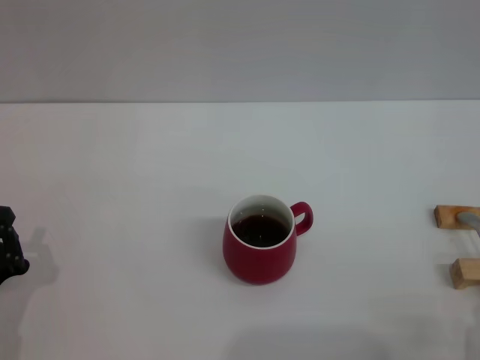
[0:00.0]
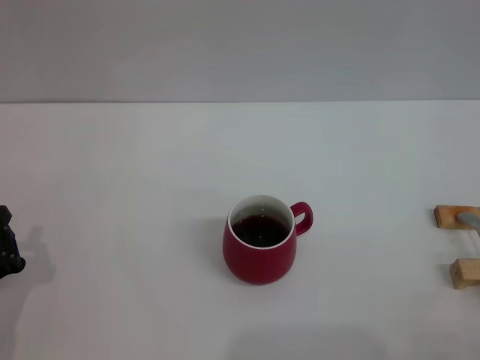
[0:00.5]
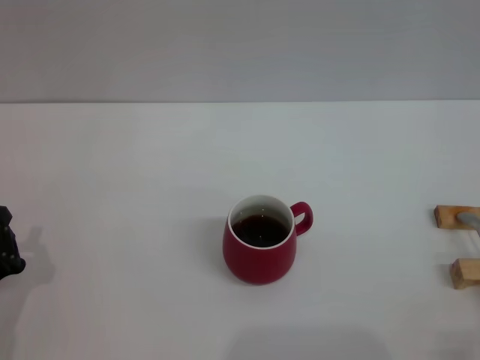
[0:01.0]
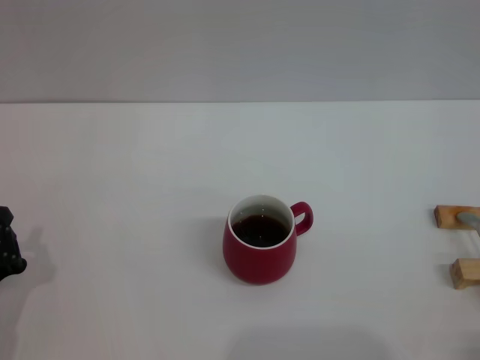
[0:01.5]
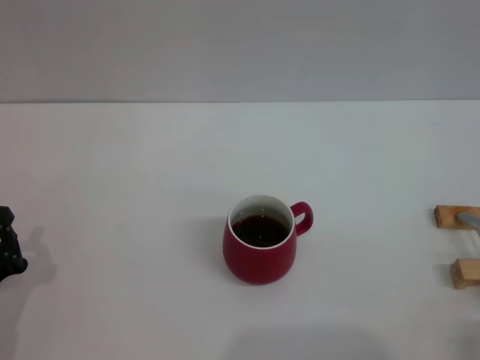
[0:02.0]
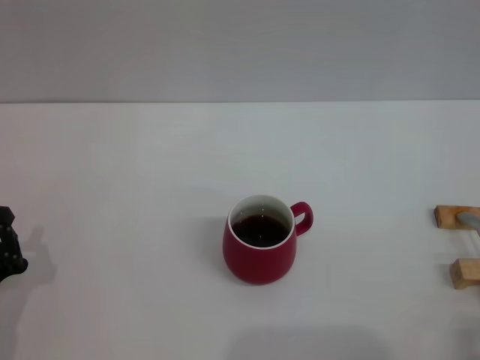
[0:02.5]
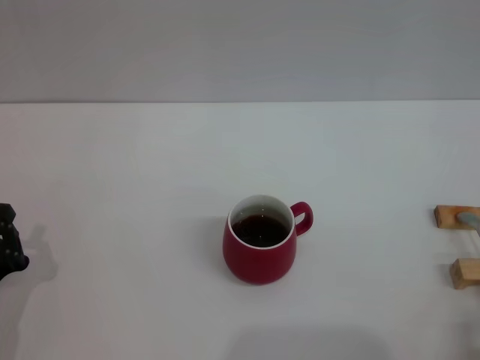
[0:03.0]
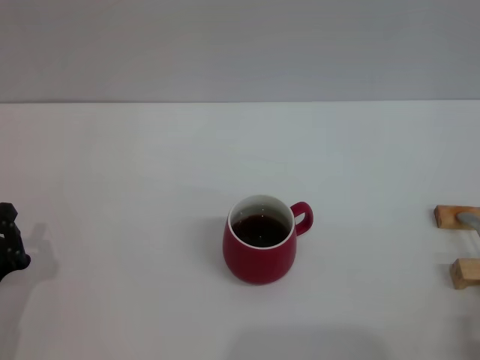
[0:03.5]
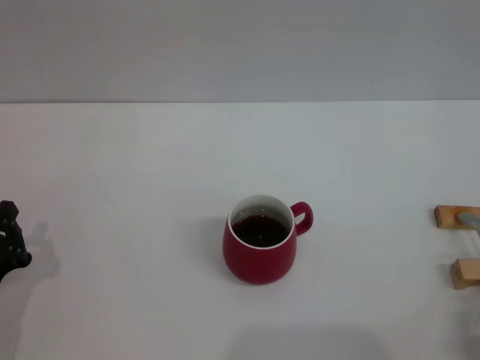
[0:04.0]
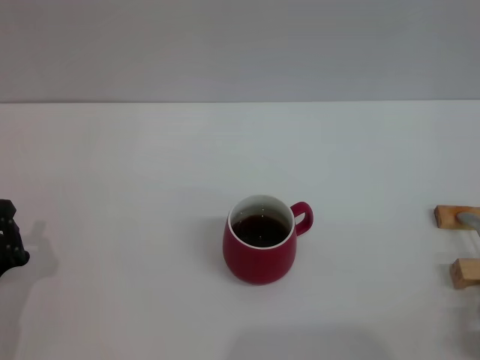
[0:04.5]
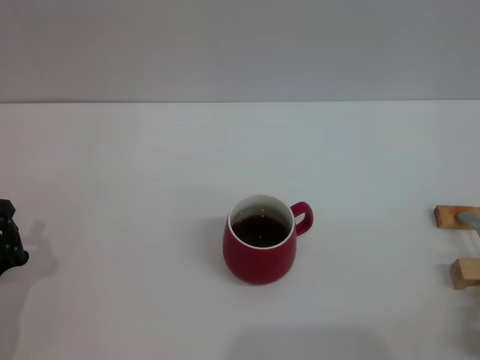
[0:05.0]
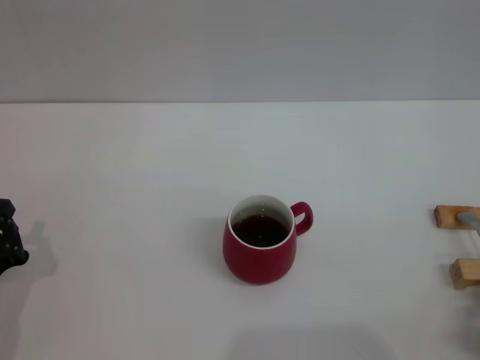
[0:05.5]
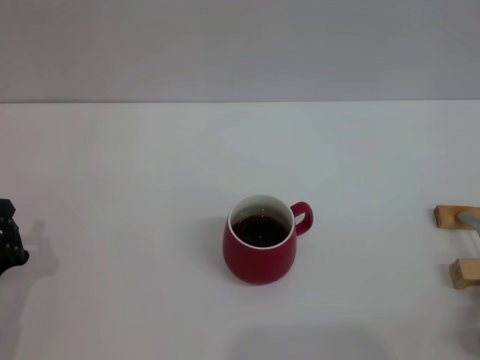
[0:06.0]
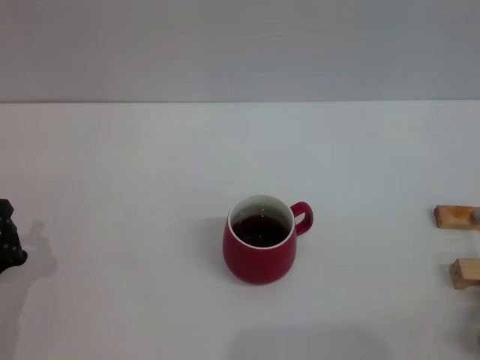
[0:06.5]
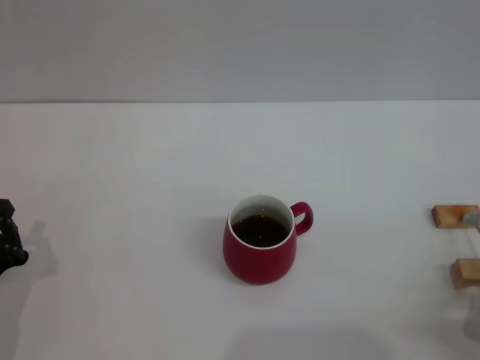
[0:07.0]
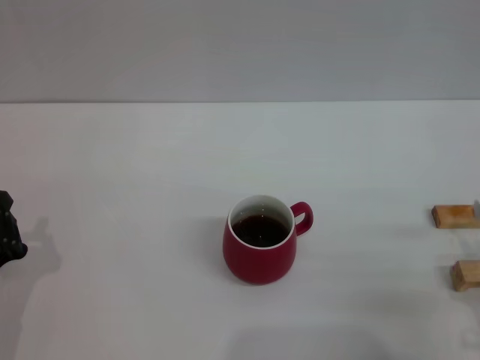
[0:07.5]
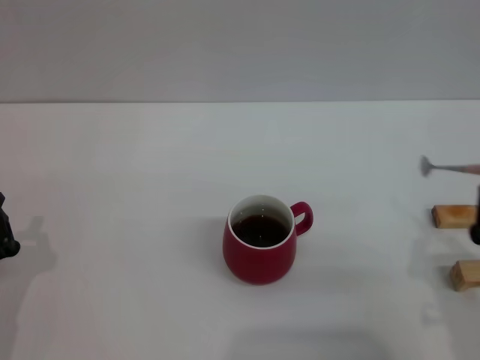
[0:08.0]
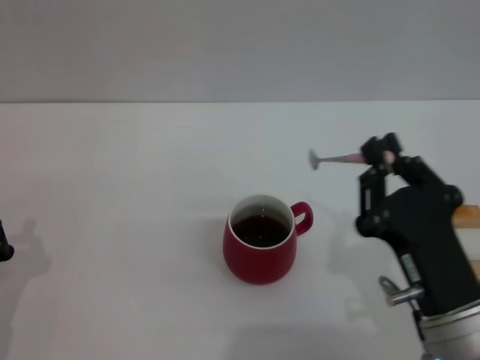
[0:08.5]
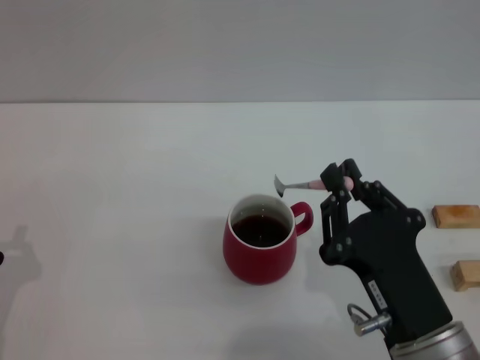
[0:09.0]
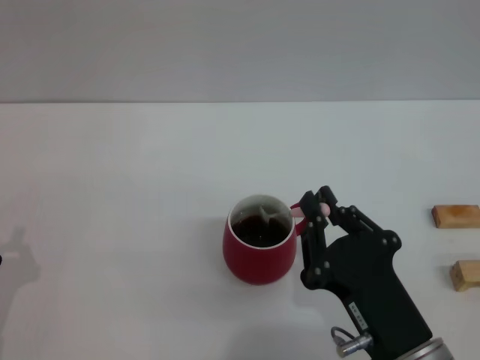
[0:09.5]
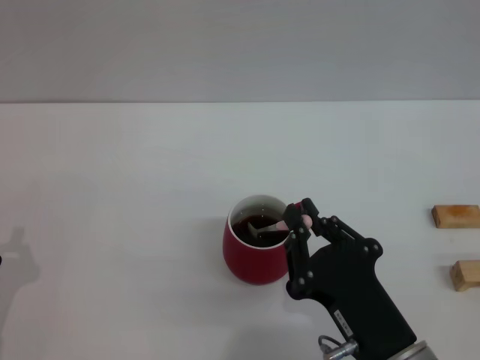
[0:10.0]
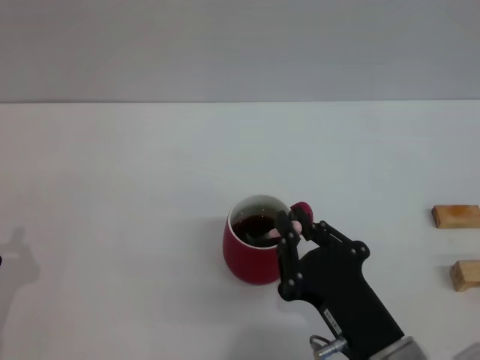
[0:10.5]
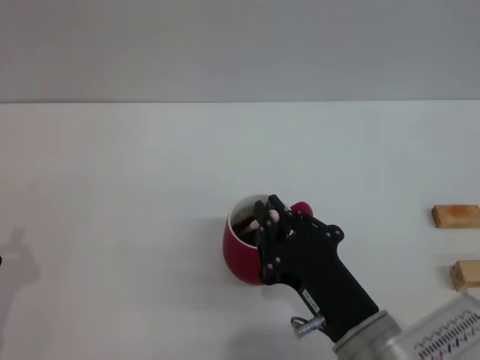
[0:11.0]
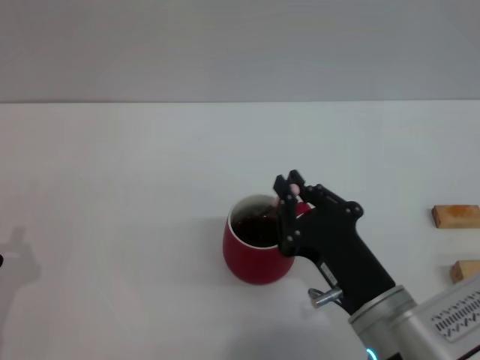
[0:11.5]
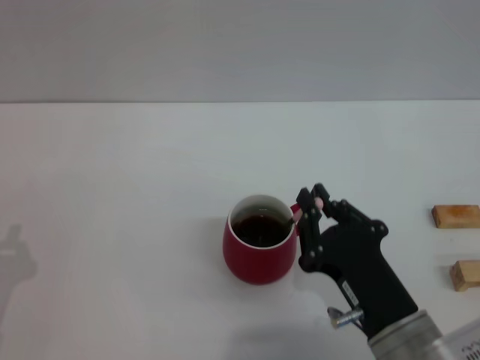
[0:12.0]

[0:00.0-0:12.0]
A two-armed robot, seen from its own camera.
Task of the whole recording: Move the red cup to the center, lift the pink spoon, stir it three times in the cup, and put the spoon into the cup.
Step, 0:00.0 to 0:07.5: Pick up the spoon with the right gripper.
0:06.0 to 0:08.0: The right gripper goes approximately 10 cm upward and to the left.
0:08.0 to 0:10.0: The right gripper goes about 10 cm to the left.
0:10.0 to 0:12.0: The grippers make only small movements.

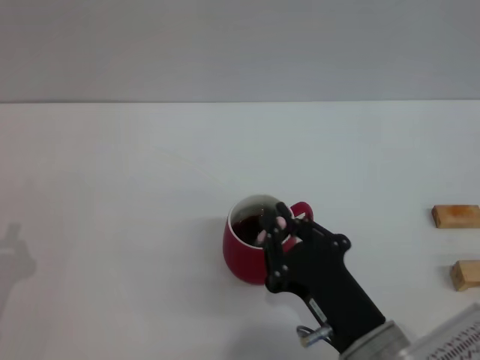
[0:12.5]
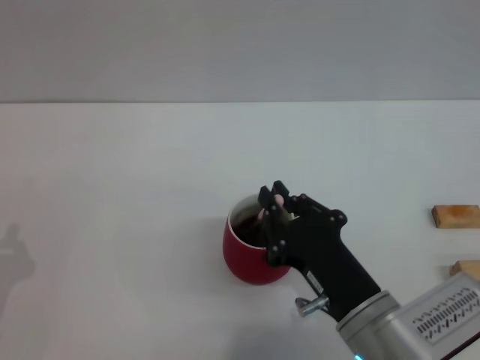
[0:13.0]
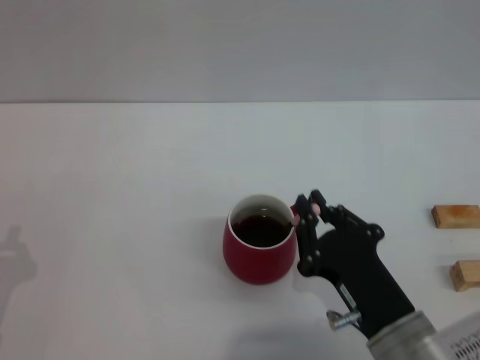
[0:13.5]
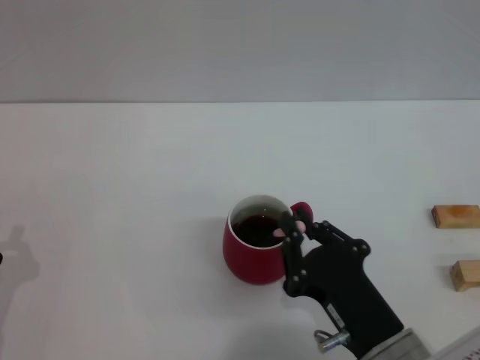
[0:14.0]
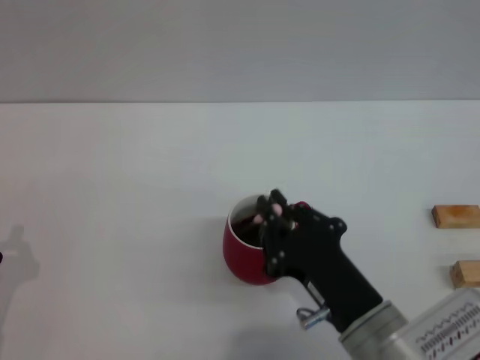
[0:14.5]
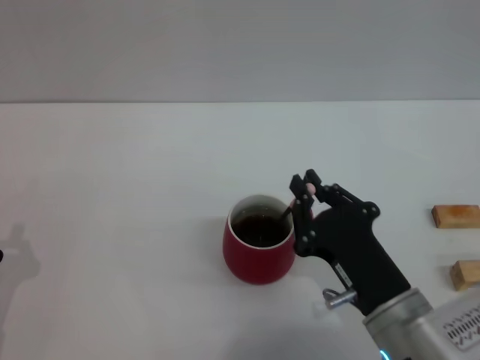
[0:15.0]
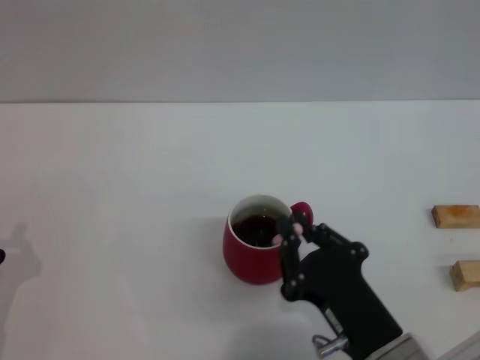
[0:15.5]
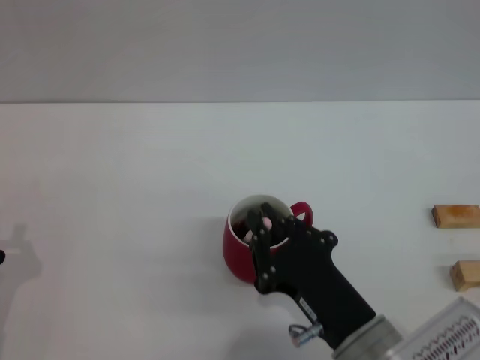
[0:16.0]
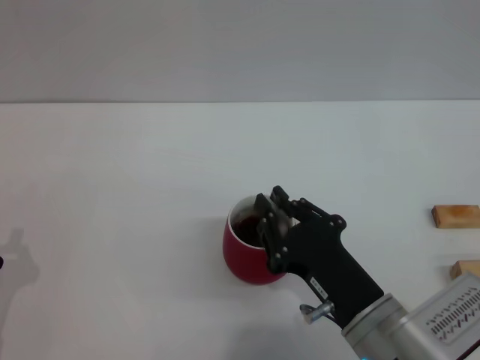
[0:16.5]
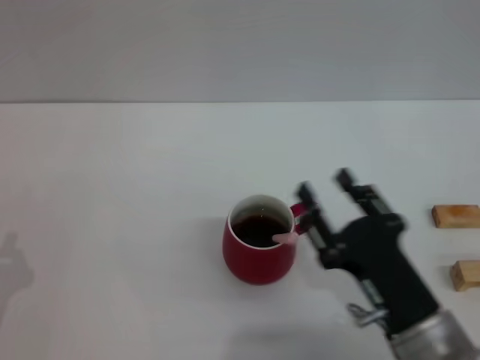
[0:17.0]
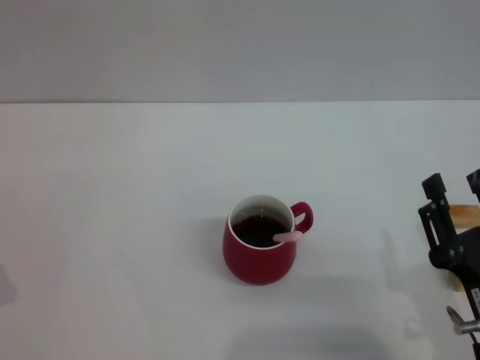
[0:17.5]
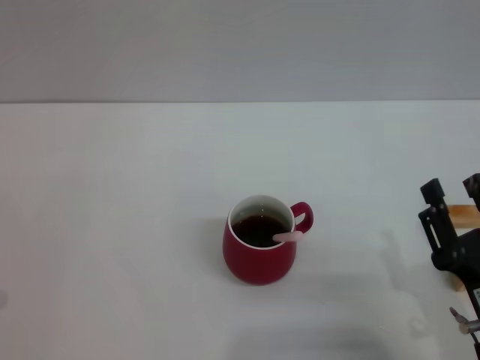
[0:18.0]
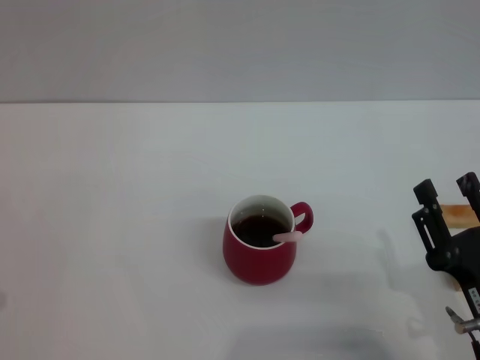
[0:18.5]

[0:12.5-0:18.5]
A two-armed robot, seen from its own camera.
Task of the whole recording: Move the red cup to the center, lift the pink spoon, stir it three times in the cup, and put the spoon into the cup.
Step, 0:12.5 to 0:17.0: Stir the coffee in the cup with the right gripper.
0:12.5 to 0:16.5: The grippers move only a little.
0:16.5 to 0:18.5: The right gripper goes approximately 10 cm to the right, and opens its fingers.

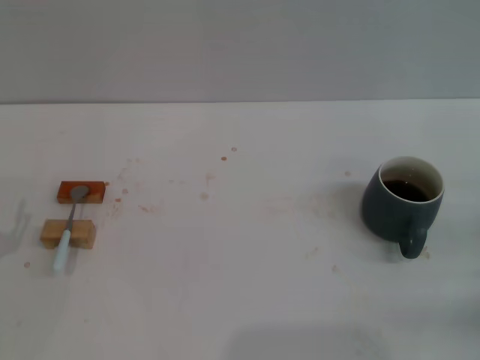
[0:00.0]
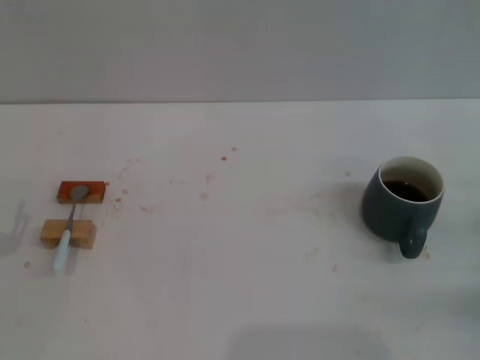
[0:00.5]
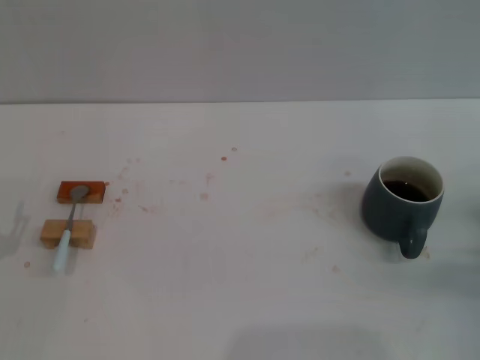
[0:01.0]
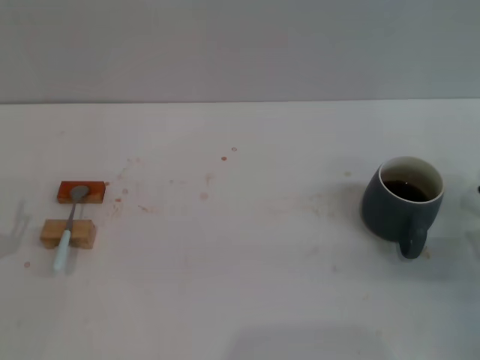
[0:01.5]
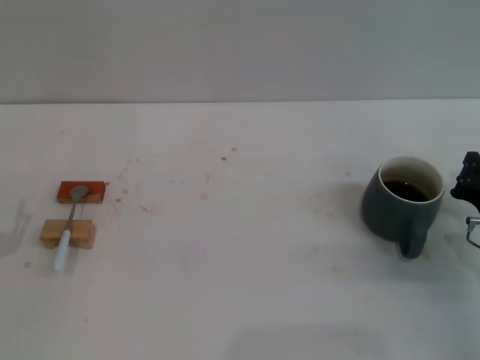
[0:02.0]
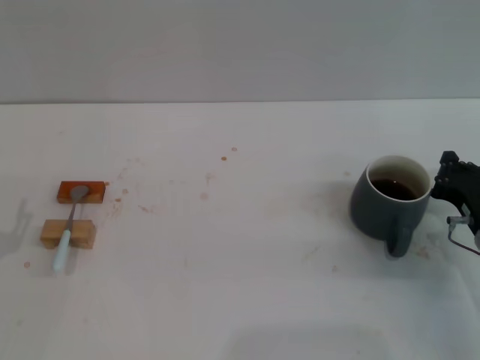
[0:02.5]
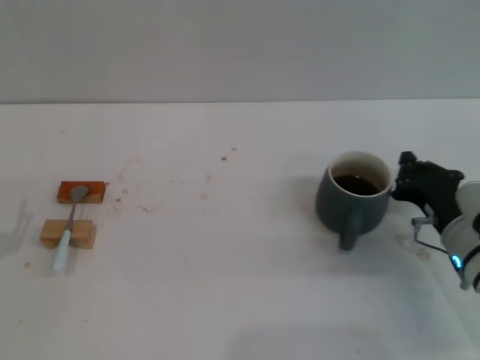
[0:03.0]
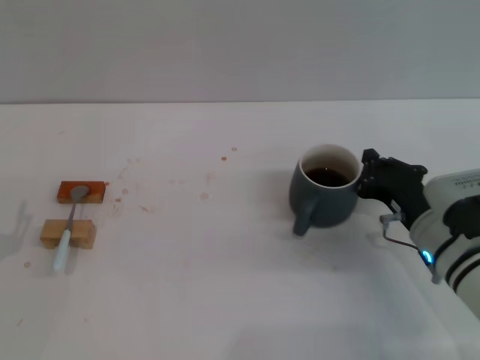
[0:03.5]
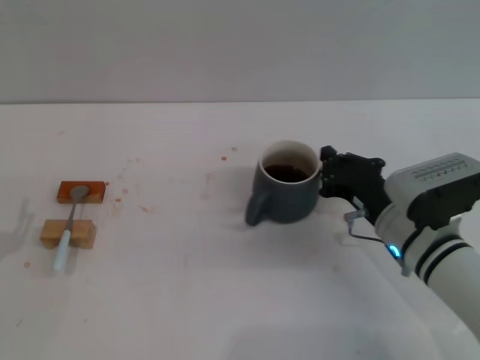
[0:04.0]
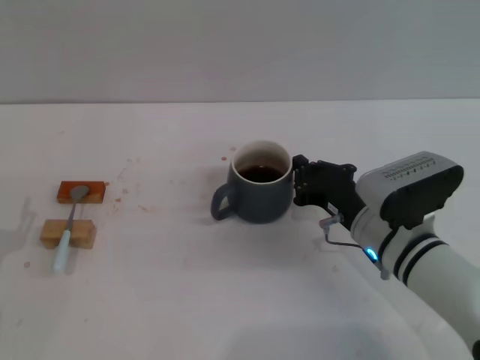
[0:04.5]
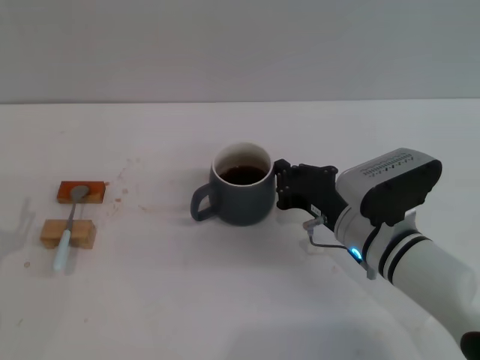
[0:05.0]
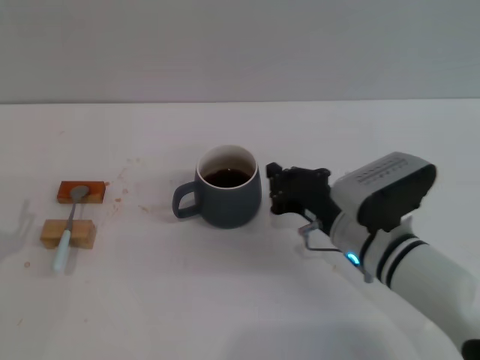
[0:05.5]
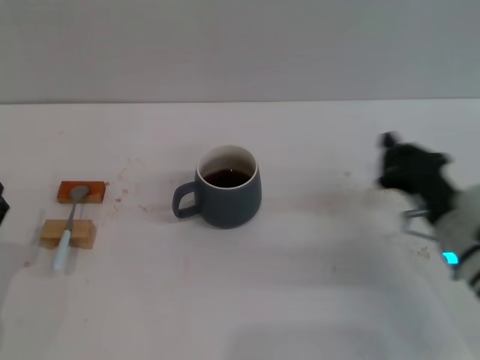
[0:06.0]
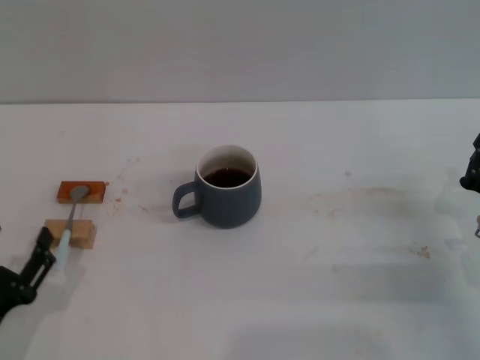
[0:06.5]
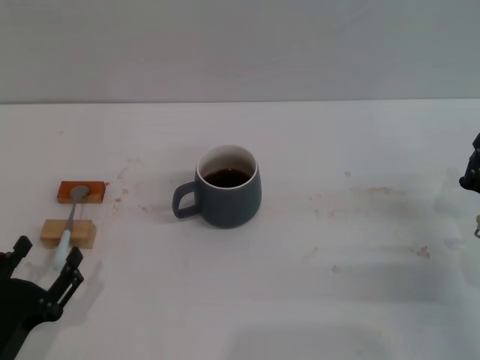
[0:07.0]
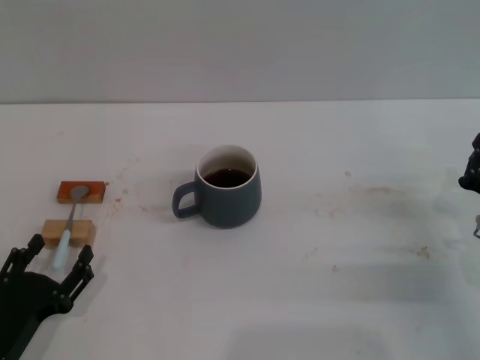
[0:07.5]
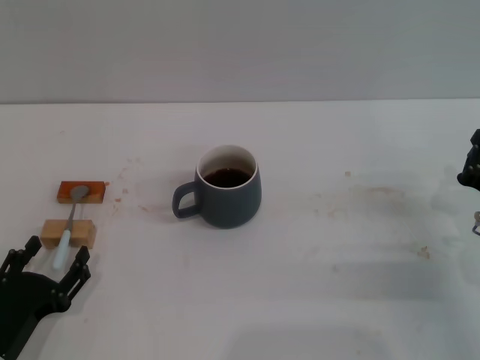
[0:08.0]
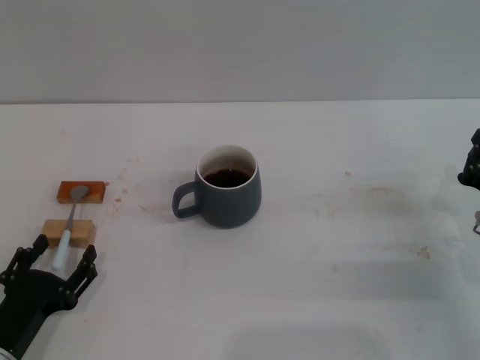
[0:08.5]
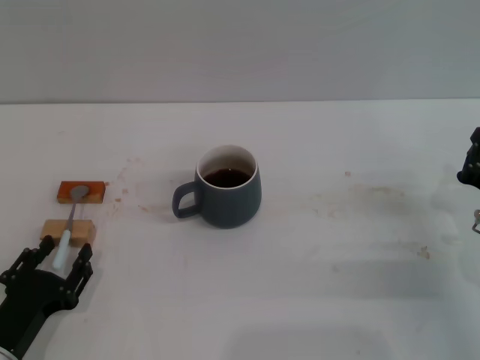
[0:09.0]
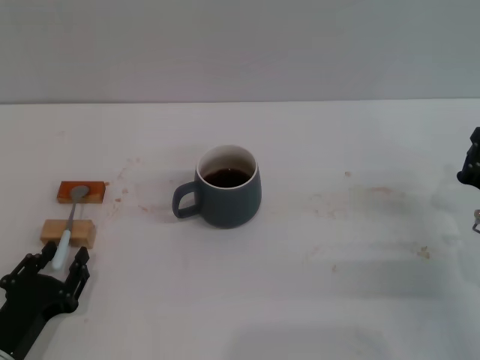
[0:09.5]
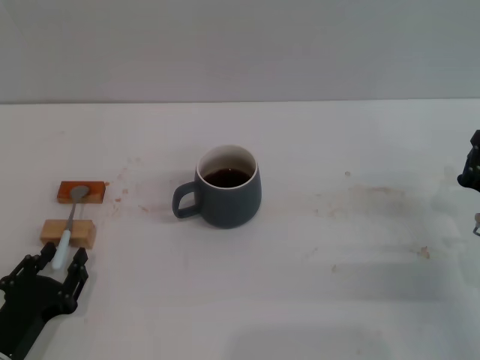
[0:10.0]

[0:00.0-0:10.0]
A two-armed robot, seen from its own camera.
Task of the whole recording: Move the grey cup to the center, lift the blue spoon, stir it three times in the cup, and put the spoon into the cup.
Step, 0:00.0 to 0:05.5: Move the cup with coffee to the center of view with the right gripper.
0:00.0 to 0:02.0: The right gripper goes roughly 10 cm to the left and forward.
0:02.0 to 0:04.0: The right gripper heads to the left, covering some 10 cm.
0:04.0 to 0:06.0: The right gripper moves to the right, some 5 cm.
0:06.0 to 0:08.0: The right gripper changes place by roughly 5 cm. Meanwhile the left gripper changes place by about 5 cm.
0:08.0 to 0:10.0: The left gripper closes up.
